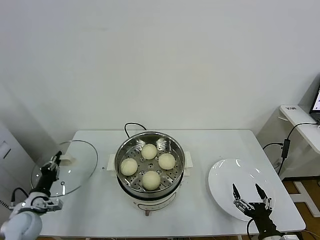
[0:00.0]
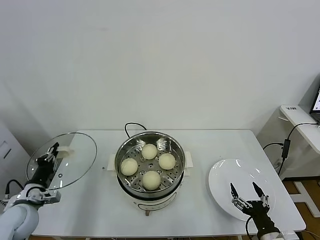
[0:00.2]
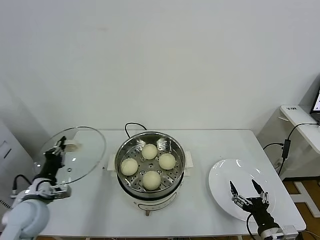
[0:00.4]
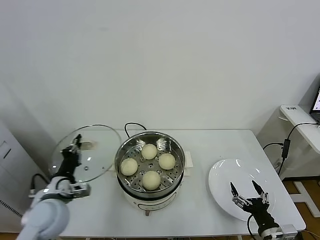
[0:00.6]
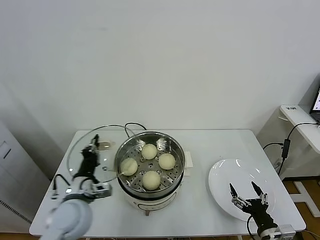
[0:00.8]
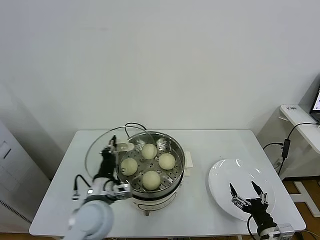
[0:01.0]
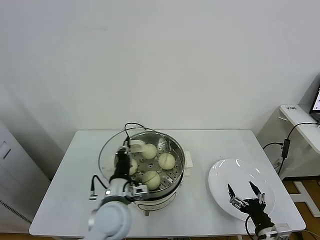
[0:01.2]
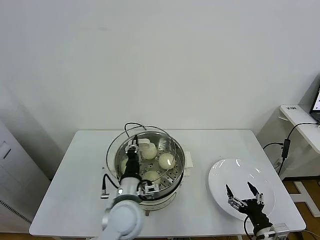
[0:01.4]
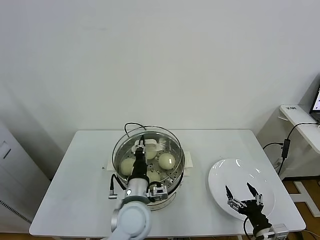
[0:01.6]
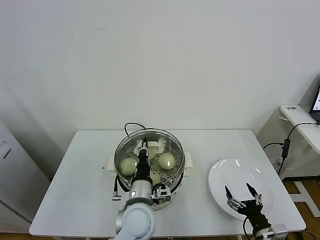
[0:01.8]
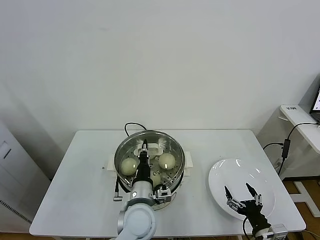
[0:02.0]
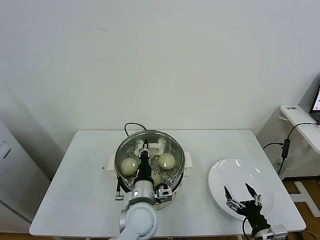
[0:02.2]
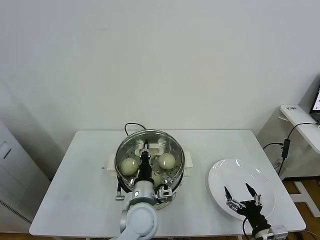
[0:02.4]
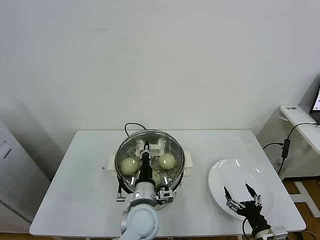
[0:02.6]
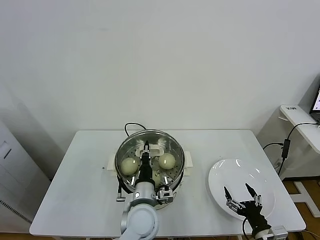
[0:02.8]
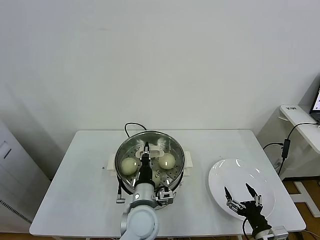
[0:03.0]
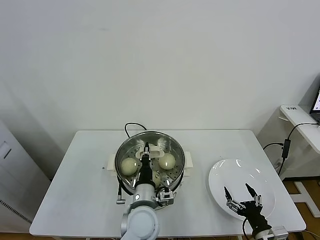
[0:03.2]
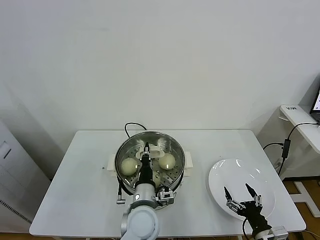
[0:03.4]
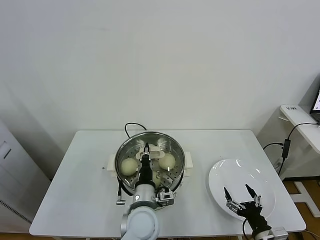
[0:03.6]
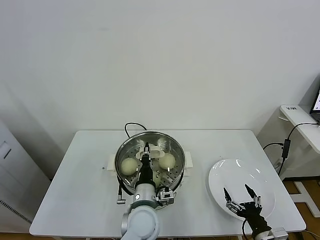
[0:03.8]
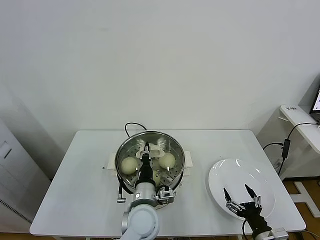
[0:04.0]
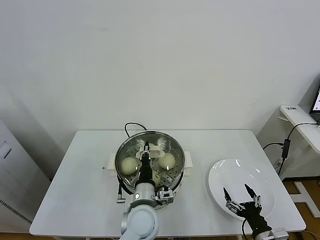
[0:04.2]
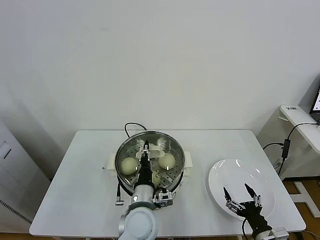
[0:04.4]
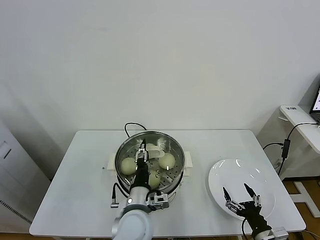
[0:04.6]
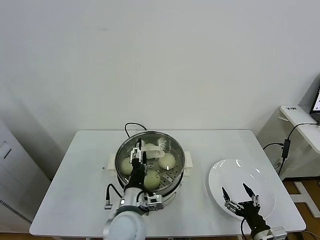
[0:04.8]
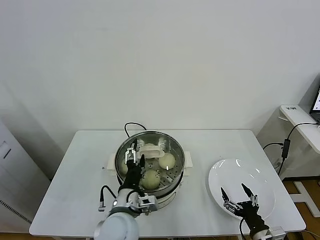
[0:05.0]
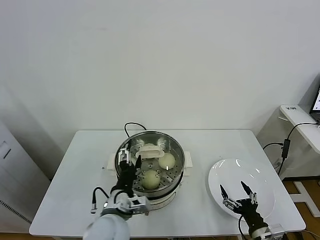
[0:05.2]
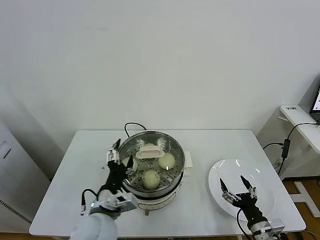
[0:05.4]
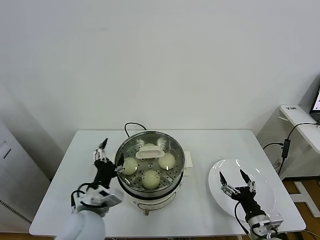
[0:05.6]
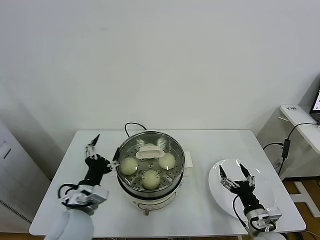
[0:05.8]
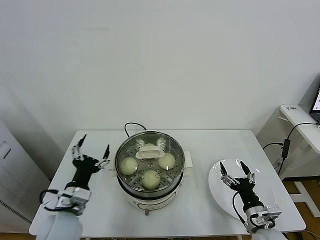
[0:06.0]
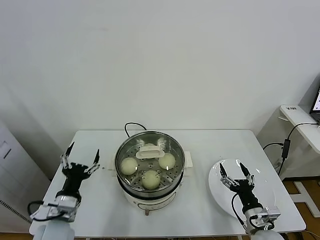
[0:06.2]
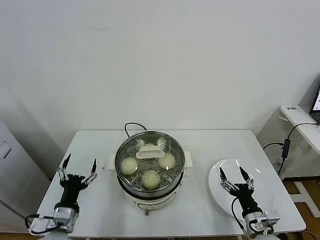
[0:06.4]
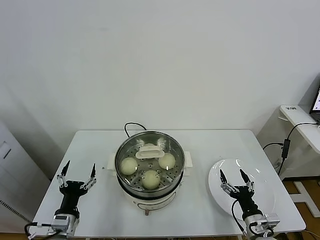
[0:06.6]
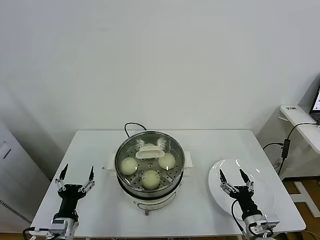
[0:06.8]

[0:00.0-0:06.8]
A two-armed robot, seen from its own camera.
Task of the whole recording: take steamed baozi put them in steamer.
Step, 0.0 to 5.0 s: Place the pot lid on the steamer with left gripper.
0.0 to 1.4 s: The left gripper heads to the right, covering some 35 cm.
1.4 to 2.8 s: The left gripper moves roughly 5 cm.
2.8 to 4.0 s: Both grippers stay about where they are.
4.0 to 5.4 s: The left gripper is displaced to the left and upward by about 10 cm, and opens.
5.4 to 6.8 s: The left gripper moves to the left and downward, approximately 20 cm.

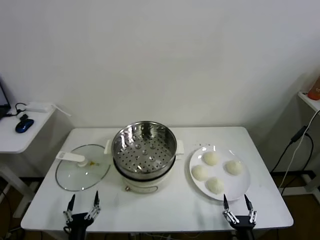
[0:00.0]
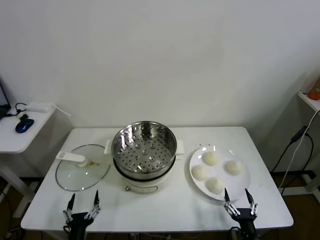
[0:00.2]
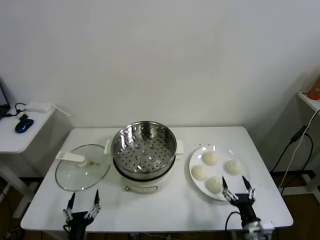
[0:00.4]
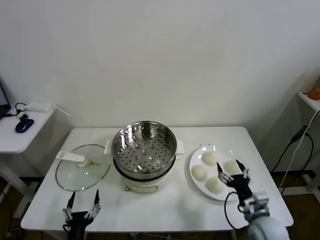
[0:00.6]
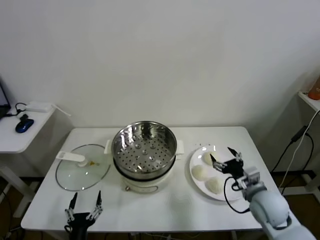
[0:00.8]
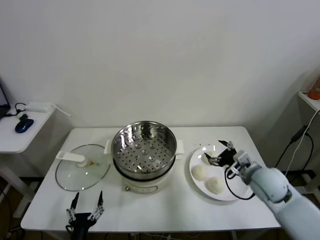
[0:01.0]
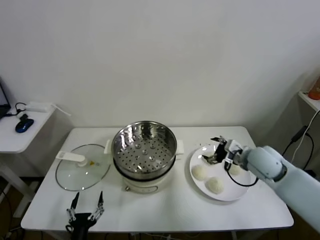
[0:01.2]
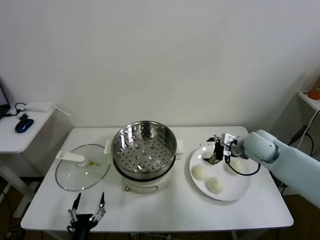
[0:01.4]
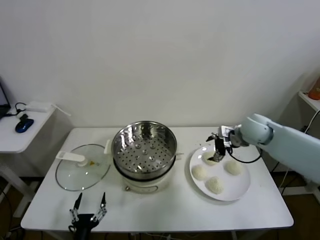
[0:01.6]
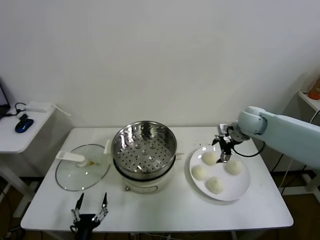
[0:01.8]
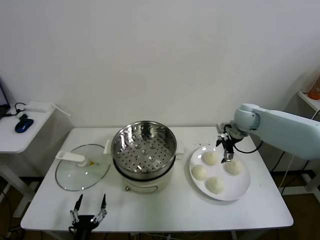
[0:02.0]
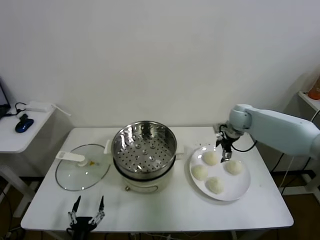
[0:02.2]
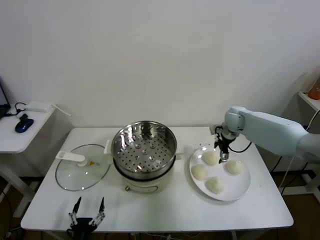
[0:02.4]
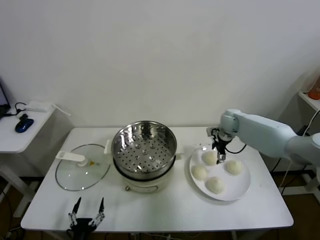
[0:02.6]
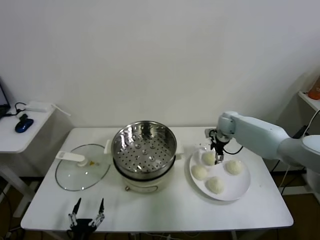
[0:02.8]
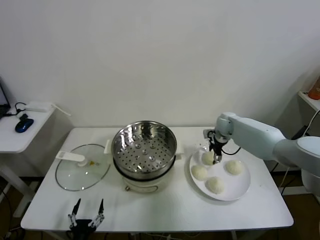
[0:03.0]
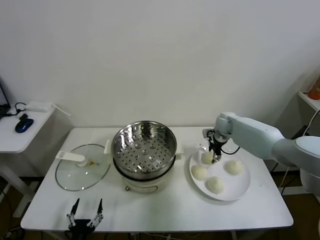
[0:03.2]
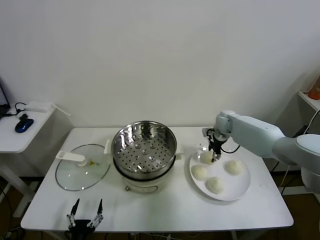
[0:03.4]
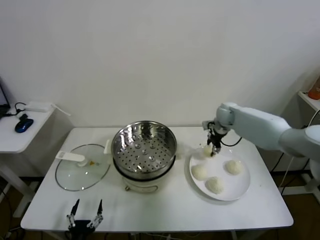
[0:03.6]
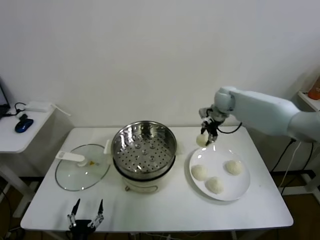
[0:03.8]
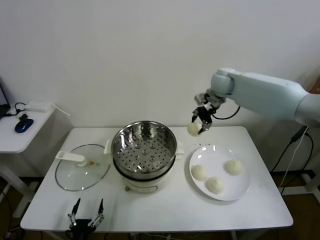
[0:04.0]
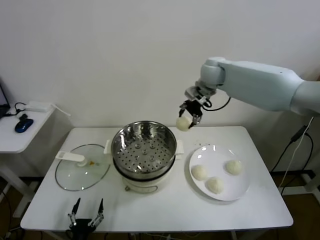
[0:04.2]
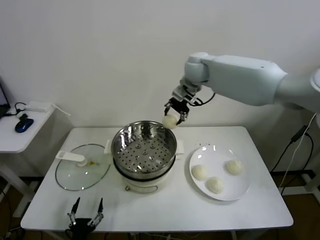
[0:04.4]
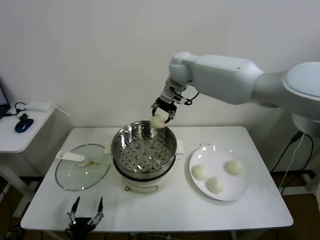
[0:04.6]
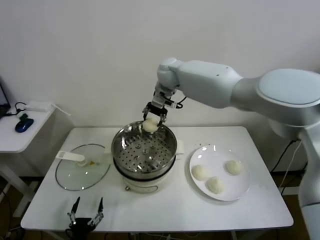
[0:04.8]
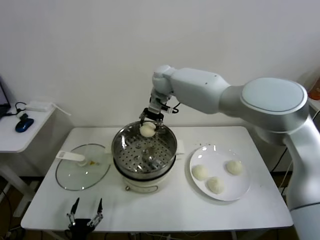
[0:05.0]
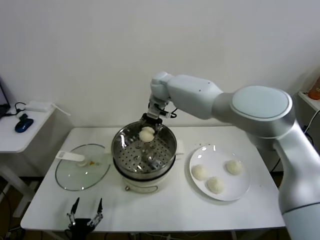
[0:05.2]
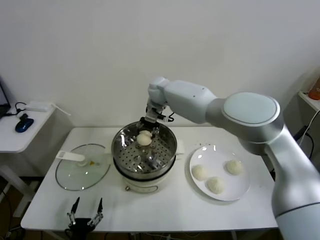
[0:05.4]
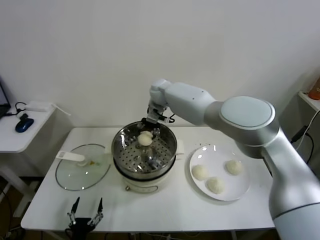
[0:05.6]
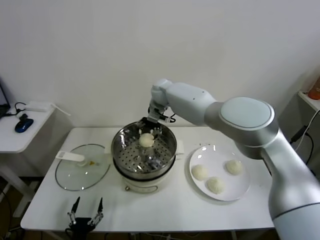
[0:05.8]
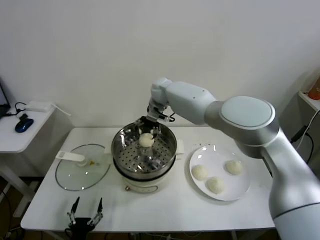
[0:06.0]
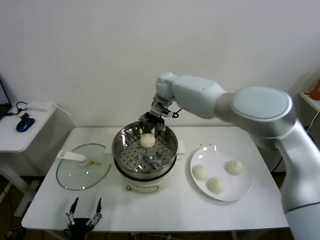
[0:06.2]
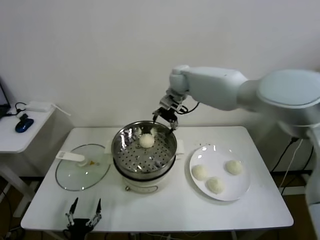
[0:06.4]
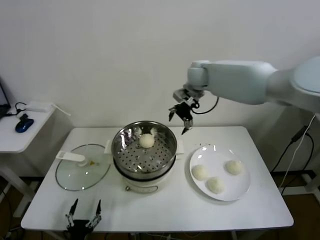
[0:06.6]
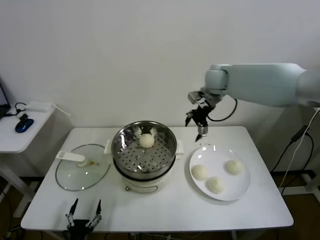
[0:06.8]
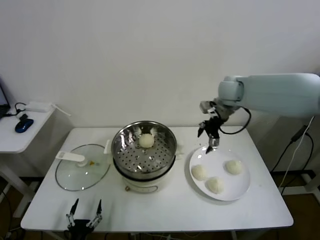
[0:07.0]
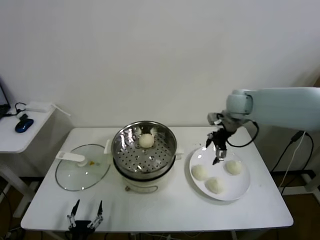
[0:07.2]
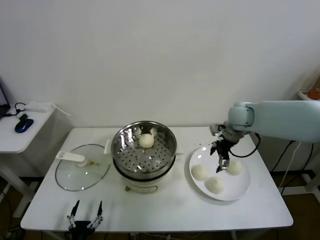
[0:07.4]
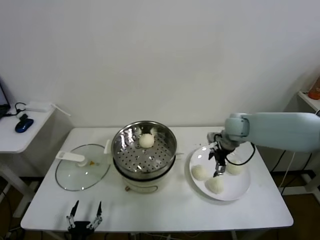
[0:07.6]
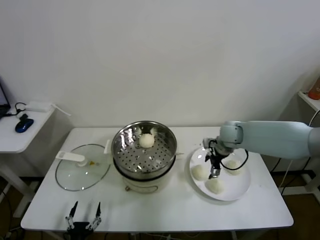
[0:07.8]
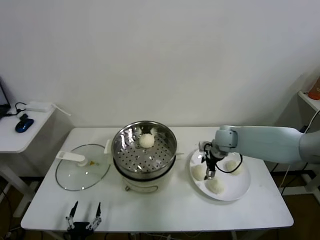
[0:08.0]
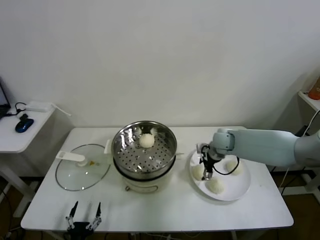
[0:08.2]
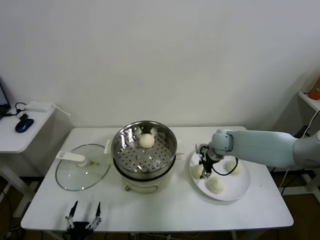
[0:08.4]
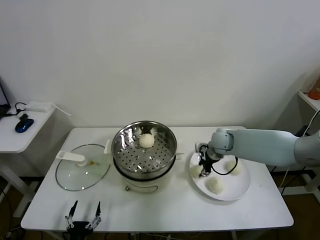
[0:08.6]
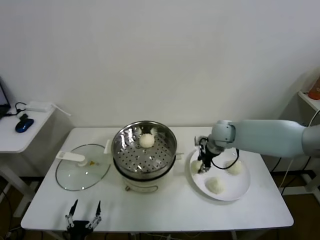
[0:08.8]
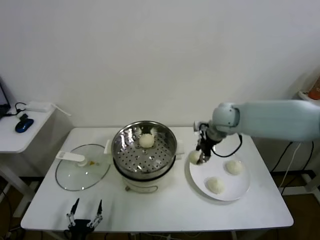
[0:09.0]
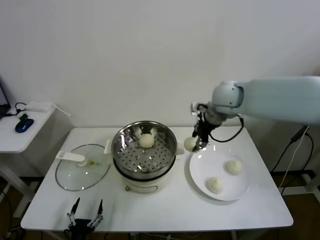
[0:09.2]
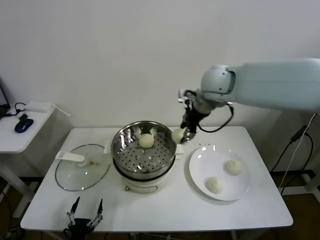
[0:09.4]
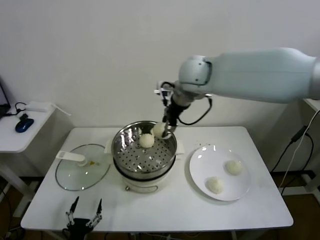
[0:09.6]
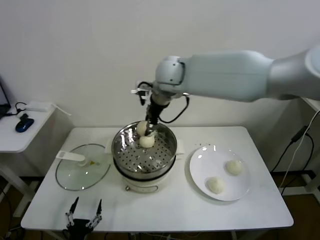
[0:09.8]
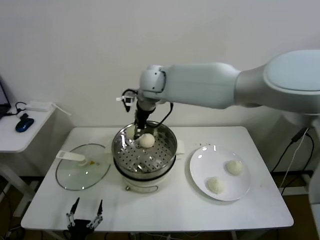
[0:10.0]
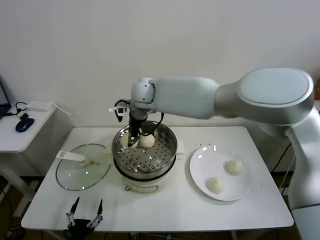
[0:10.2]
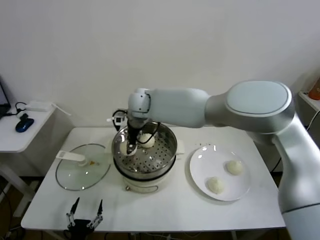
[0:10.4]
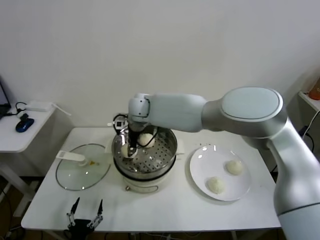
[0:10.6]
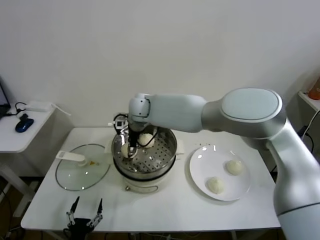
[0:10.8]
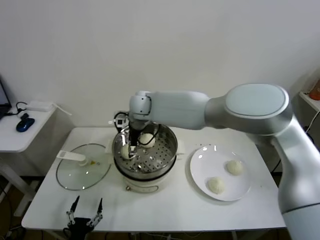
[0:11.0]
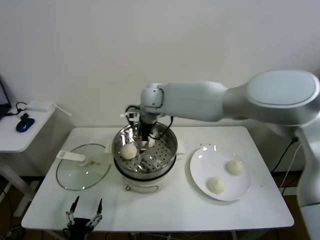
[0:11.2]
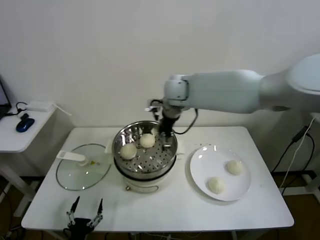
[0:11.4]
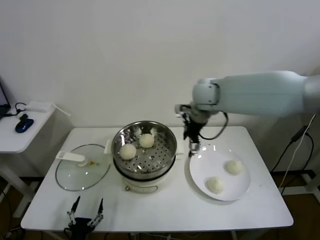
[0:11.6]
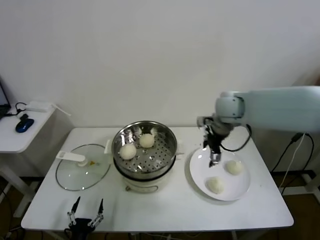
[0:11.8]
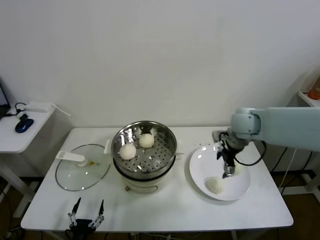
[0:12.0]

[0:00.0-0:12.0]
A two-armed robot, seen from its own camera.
Task of the whole recording: take steamed baozi put them in steamer.
Step, 0.0 to 3.4 s: Grasp the baozi in the plate with right gripper.
Step, 3.6 to 6.0 s: Place the baozi on the steamer with right gripper.
Step, 6.2 to 8.4 s: Grasp the baozi in the plate with right gripper.
Step, 8.6 to 11.0 s: Place the baozi on the steamer with right gripper.
1.6 to 3.0 s: The right gripper travels forward and downward by approximately 15 cm, and closes.
3.0 to 4.4 s: The right gripper goes roughly 30 cm upward and to the left.
4.4 to 6.0 s: The right gripper goes about 15 cm downward and to the left, and opens up.
6.0 to 7.6 s: The right gripper is displaced to the right and backward by roughly 30 cm.
7.6 to 9.0 s: The right gripper travels upward and to the left by some 10 cm, and closes.
9.0 to 10.4 s: The right gripper shifts about 30 cm to the left.
10.4 to 12.0 s: The right gripper moves to the right, roughly 35 cm, and opens its fingers.

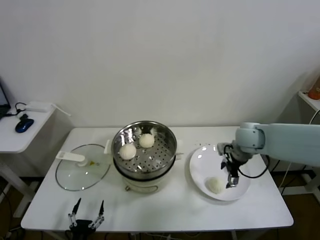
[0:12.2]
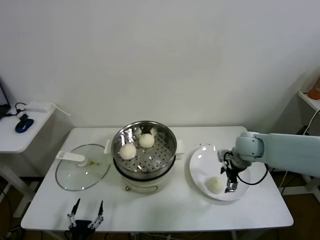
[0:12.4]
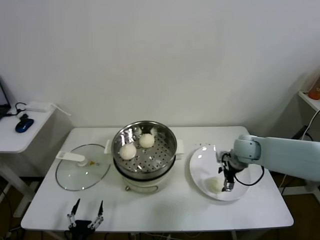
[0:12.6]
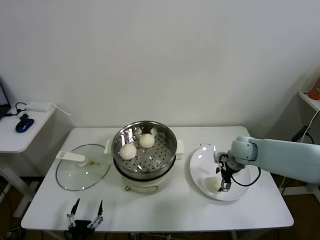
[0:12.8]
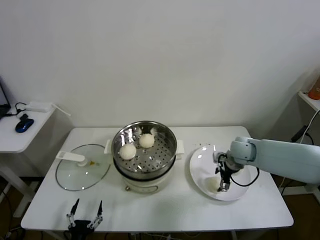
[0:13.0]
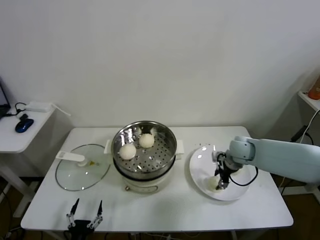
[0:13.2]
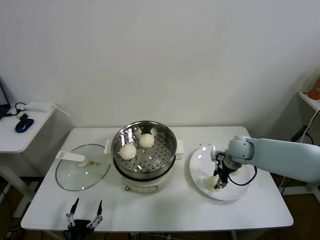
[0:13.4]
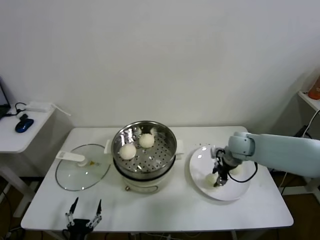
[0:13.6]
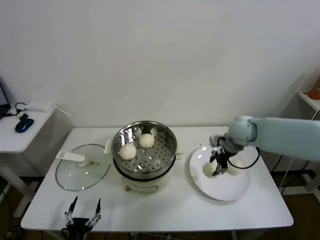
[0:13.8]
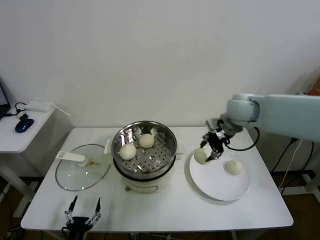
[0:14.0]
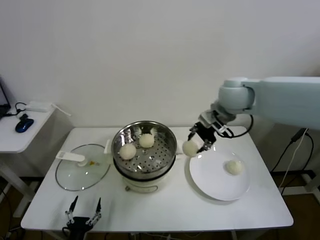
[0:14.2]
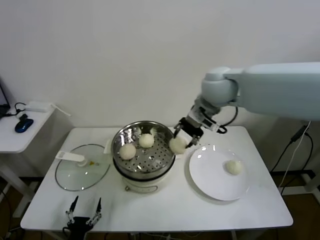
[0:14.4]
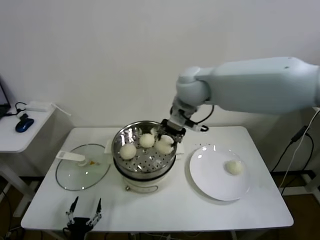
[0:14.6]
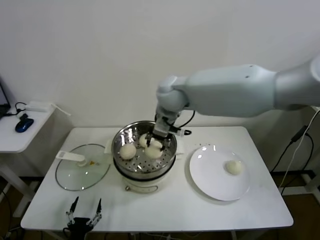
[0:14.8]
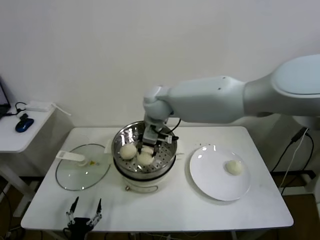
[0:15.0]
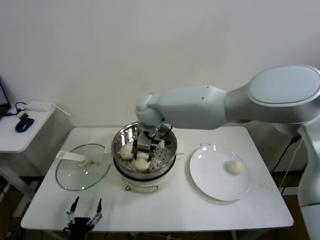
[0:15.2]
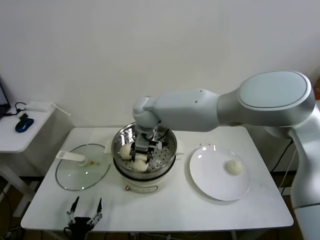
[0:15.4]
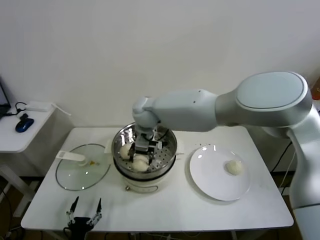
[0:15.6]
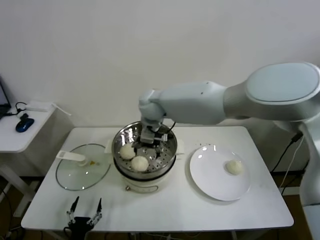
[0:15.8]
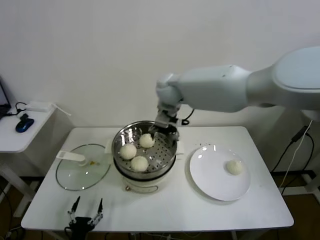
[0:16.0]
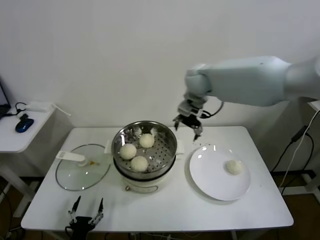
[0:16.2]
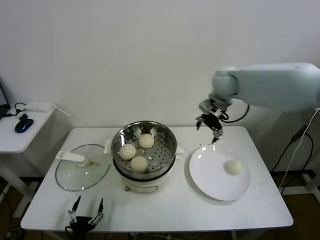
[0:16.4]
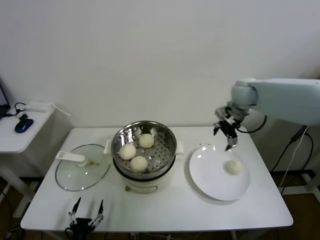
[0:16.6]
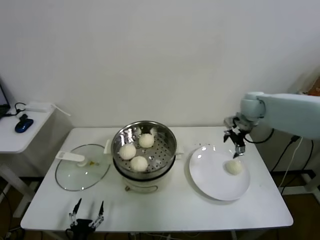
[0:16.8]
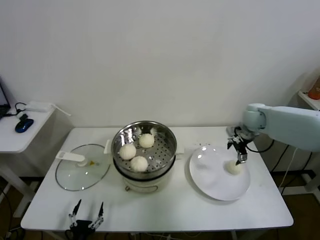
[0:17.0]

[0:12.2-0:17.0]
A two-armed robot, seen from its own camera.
Task of the whole recording: take steamed baozi put them in steamer.
Step, 12.2 to 13.4 s: Grasp the baozi in the plate with right gripper.
Step, 13.6 to 15.6 s: Place the baozi on the steamer with right gripper.
12.2 to 13.8 s: The right gripper moves about 5 cm downward and comes back, and closes its fingers.
13.8 to 15.4 s: The right gripper goes some 30 cm to the left.
15.4 to 17.0 s: The right gripper travels to the right by some 40 cm, and opens up.
